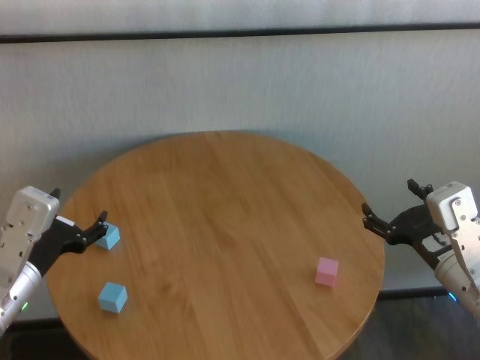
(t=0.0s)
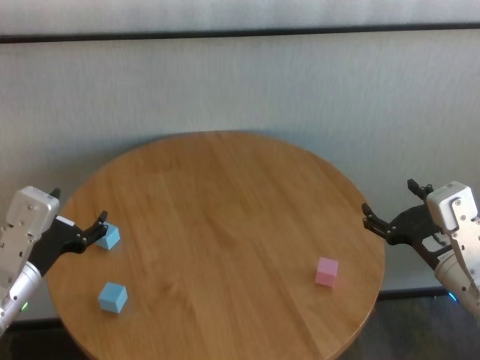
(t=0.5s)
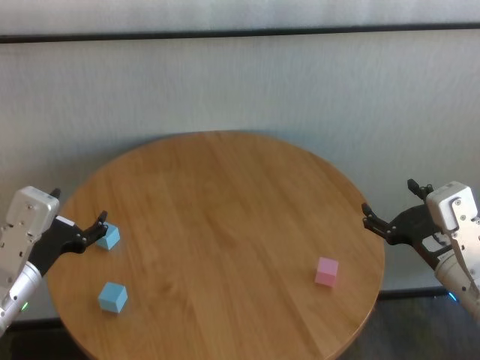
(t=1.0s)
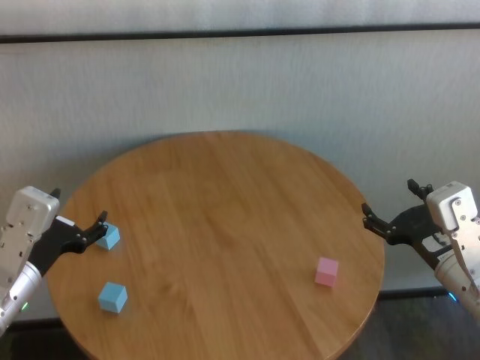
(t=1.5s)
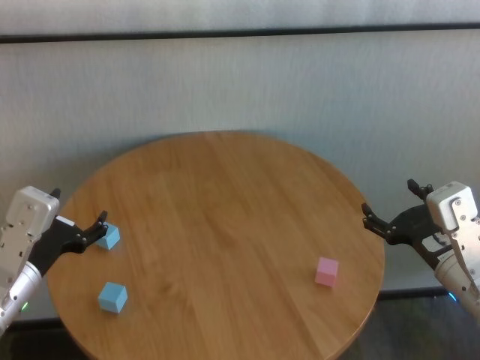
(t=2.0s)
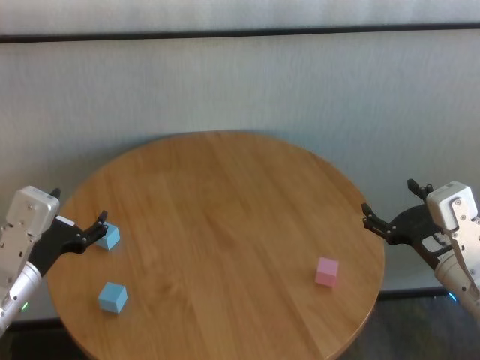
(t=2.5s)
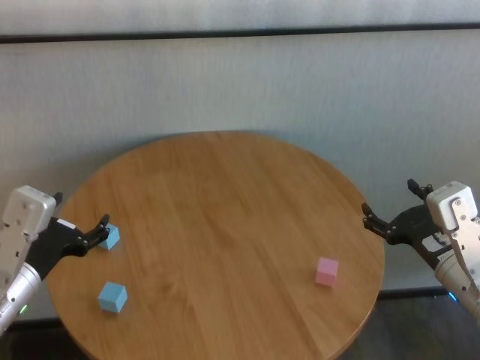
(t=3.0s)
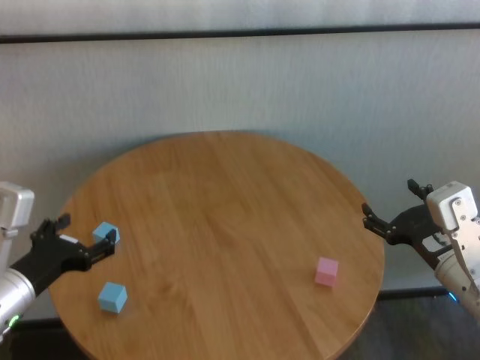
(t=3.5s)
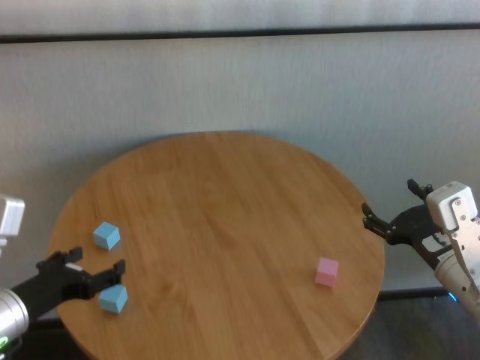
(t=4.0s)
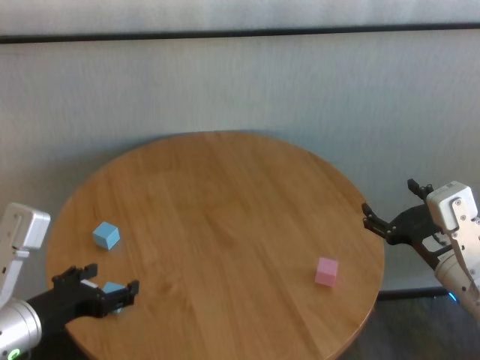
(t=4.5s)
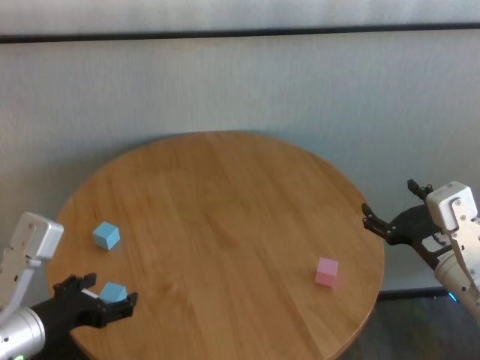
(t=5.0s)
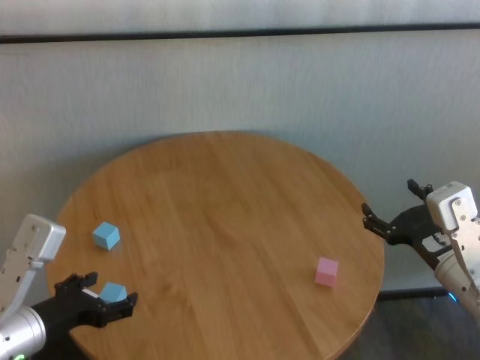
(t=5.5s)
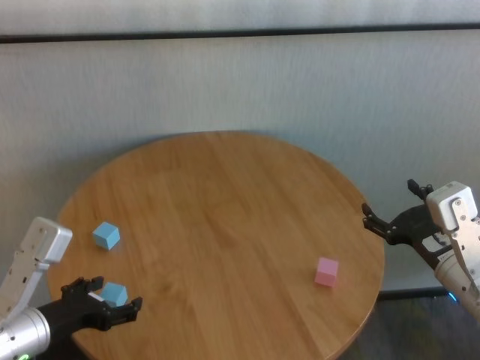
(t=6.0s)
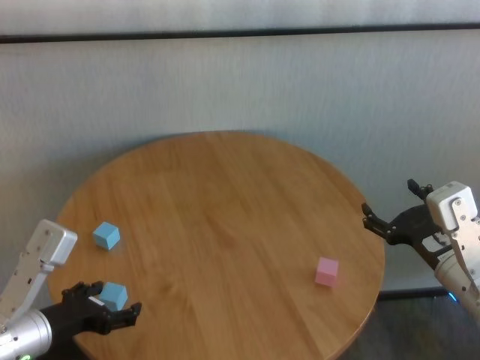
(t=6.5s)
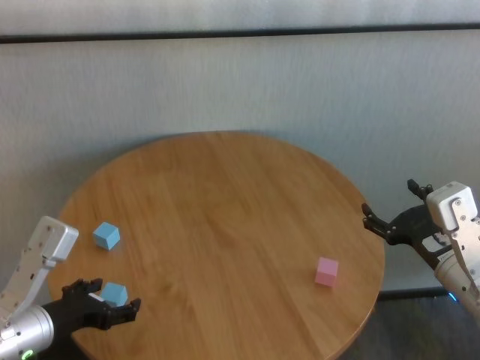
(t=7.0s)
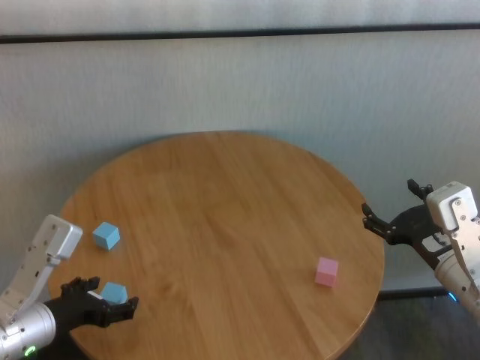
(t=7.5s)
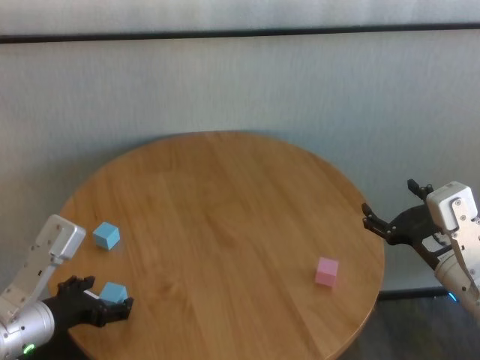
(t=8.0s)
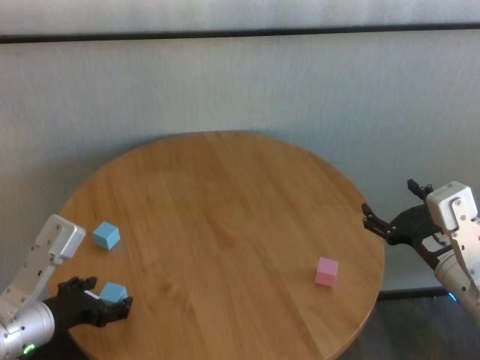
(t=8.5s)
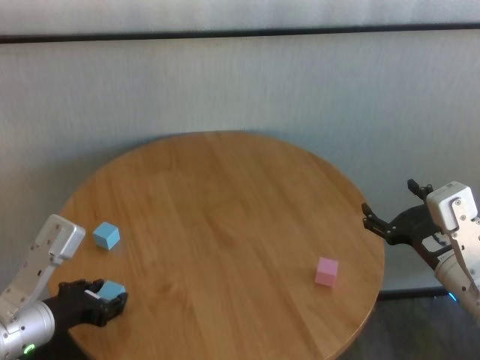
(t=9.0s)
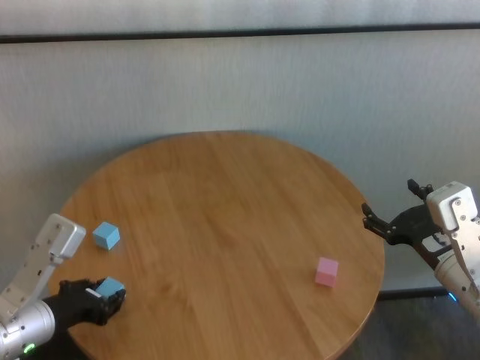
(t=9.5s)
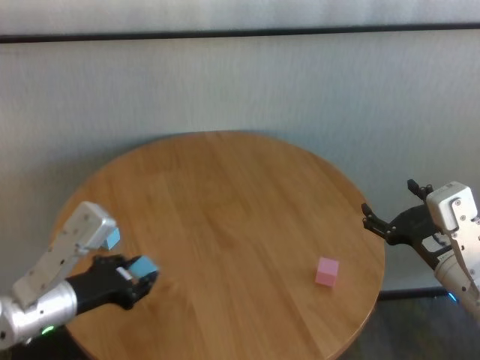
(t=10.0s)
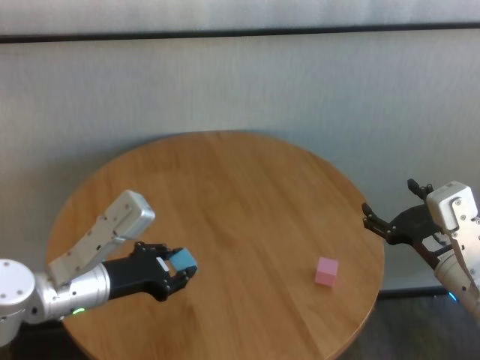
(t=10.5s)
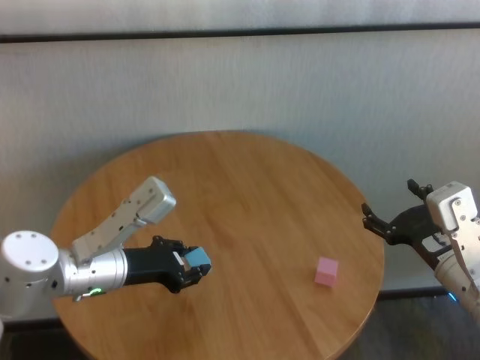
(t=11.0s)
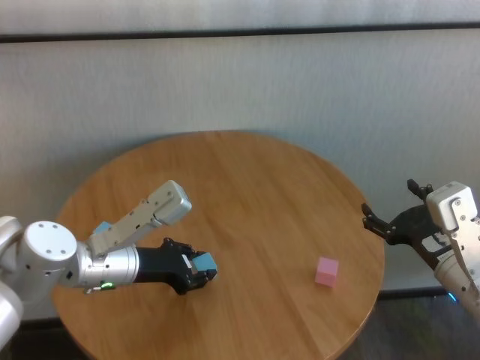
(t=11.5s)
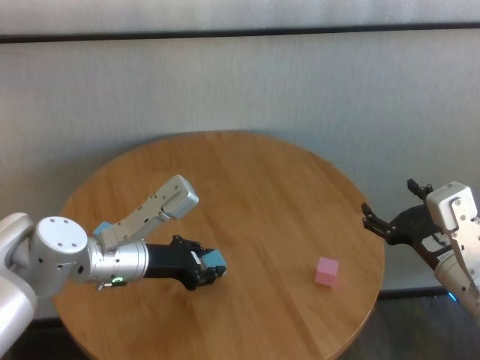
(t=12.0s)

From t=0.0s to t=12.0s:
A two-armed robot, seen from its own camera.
Task of the whole recording: stack building blocks on the table.
Step, from t=0.0s to t=9.0s: Grasp the blue building block with left gripper.

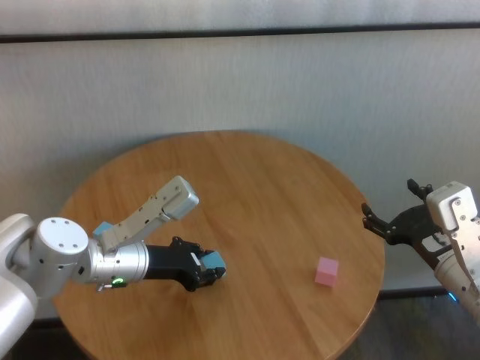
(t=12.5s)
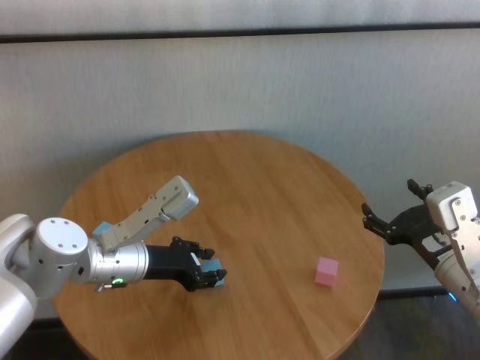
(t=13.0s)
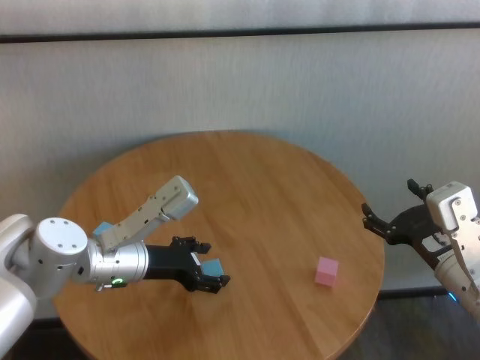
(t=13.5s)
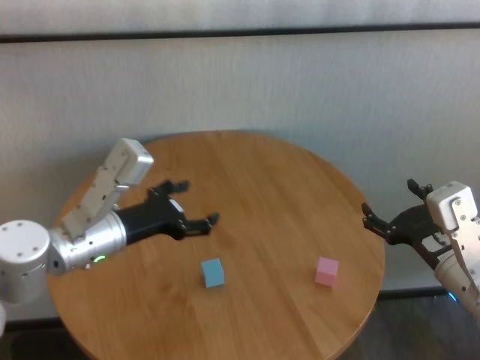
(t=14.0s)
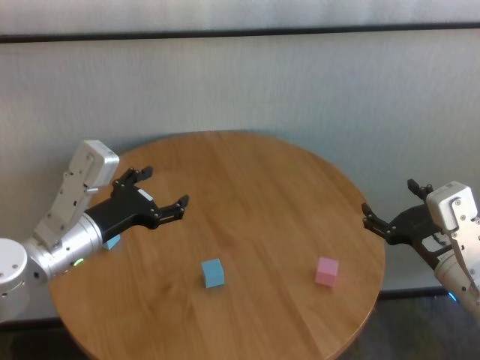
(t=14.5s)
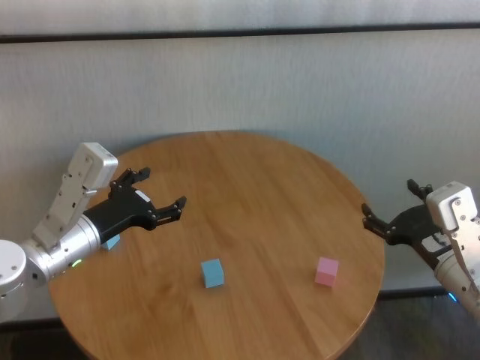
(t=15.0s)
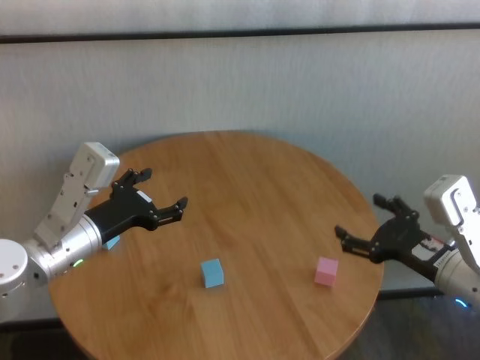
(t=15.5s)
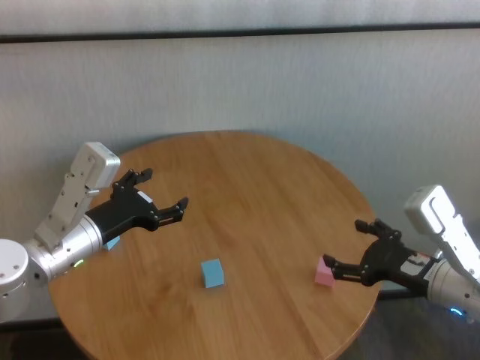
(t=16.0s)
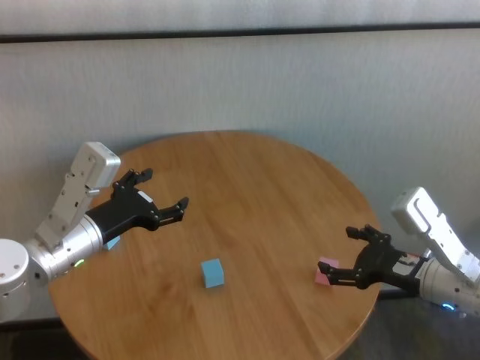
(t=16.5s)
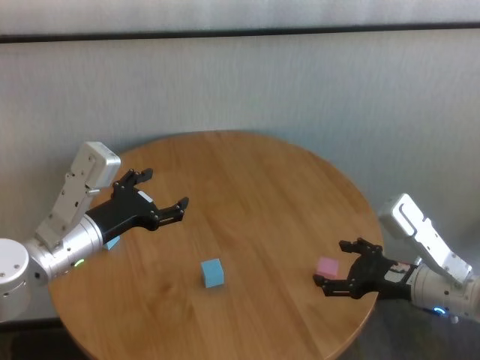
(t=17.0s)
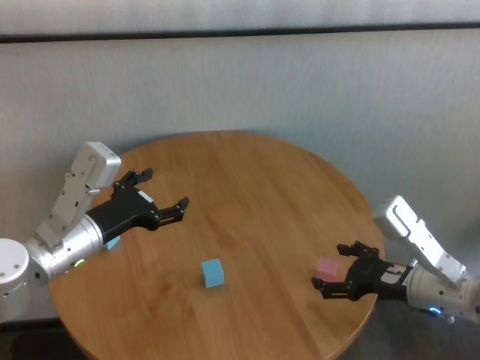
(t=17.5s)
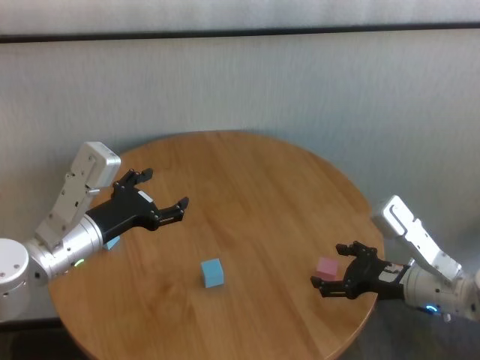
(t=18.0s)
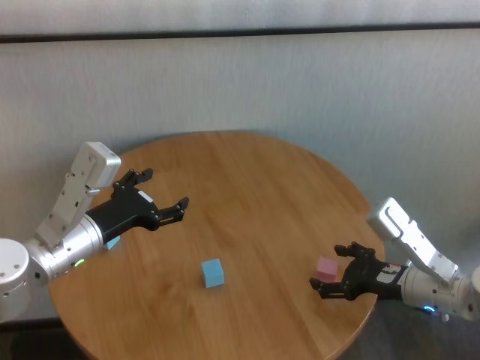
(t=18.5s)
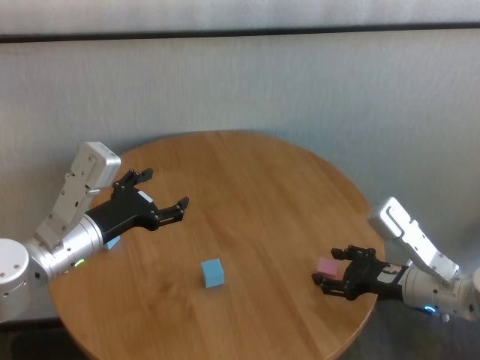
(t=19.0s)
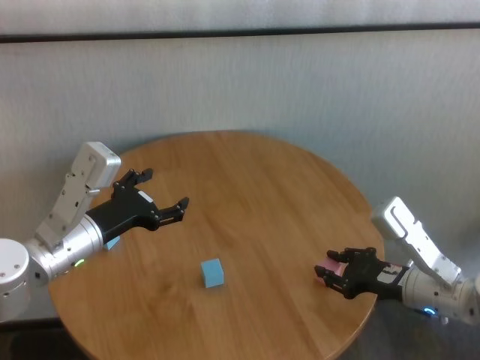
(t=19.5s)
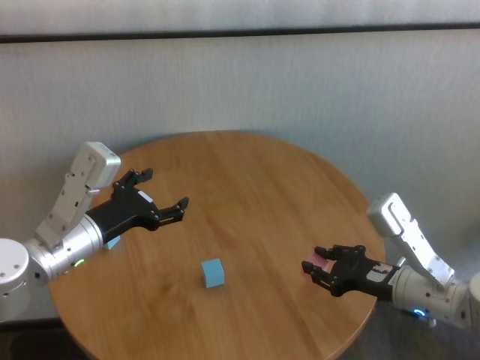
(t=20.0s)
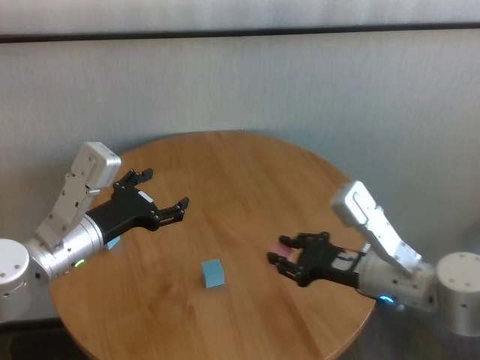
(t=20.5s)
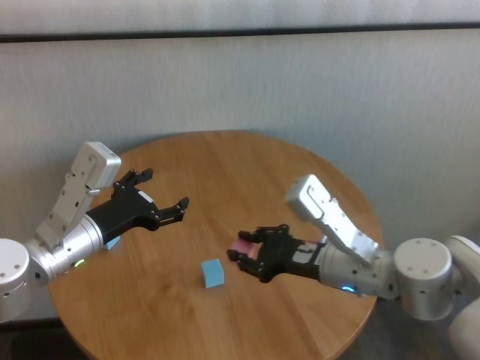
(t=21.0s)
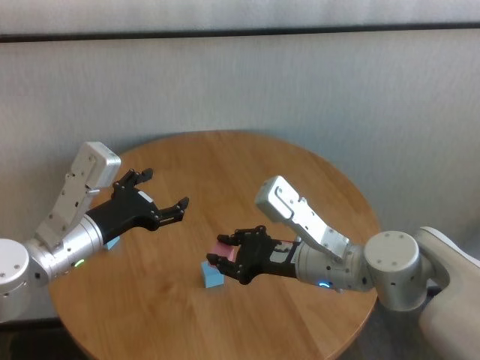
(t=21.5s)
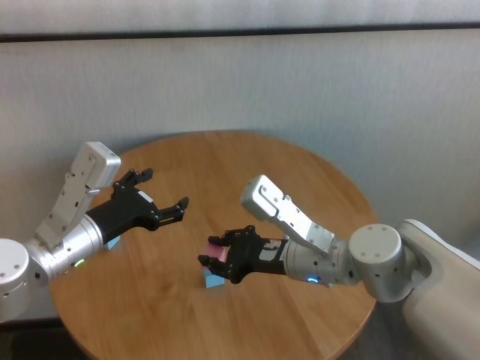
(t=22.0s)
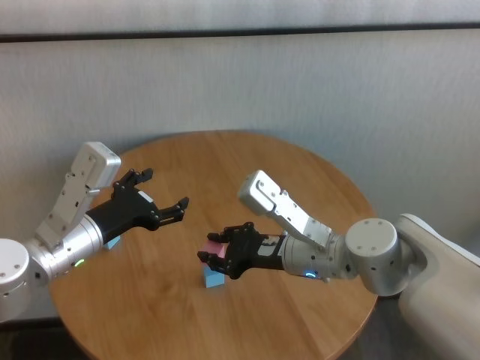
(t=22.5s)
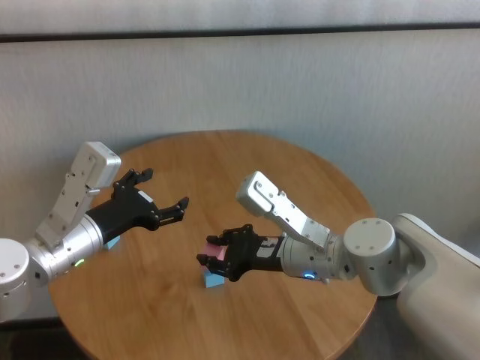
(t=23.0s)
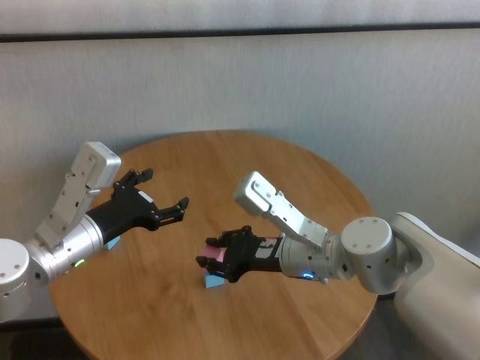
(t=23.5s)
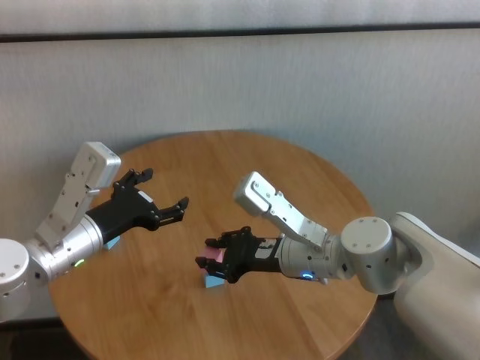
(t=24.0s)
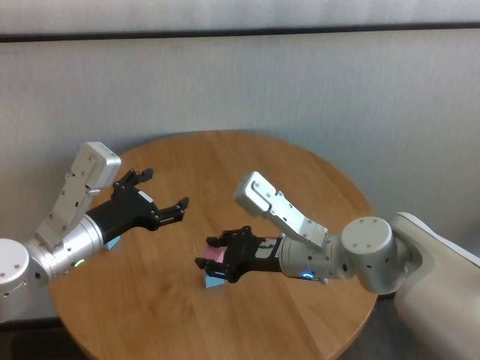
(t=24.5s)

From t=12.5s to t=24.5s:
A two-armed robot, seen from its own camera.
Task of the whole recording: stack building blocks on the table.
Step, from t=13.5s to t=19.5s: Grasp the pink building block with right gripper.

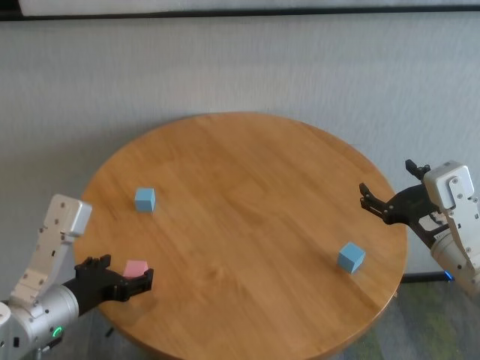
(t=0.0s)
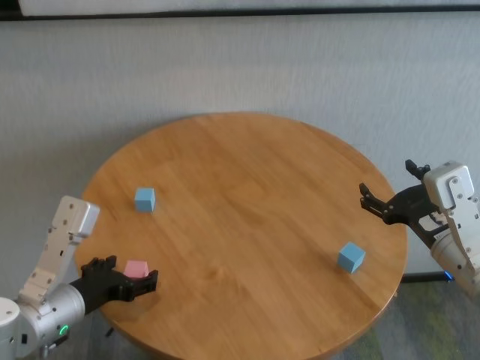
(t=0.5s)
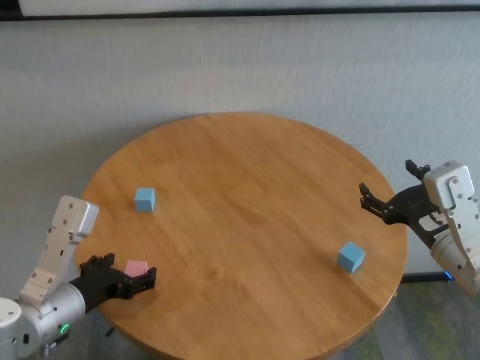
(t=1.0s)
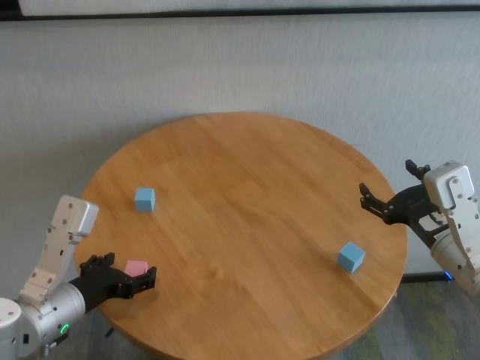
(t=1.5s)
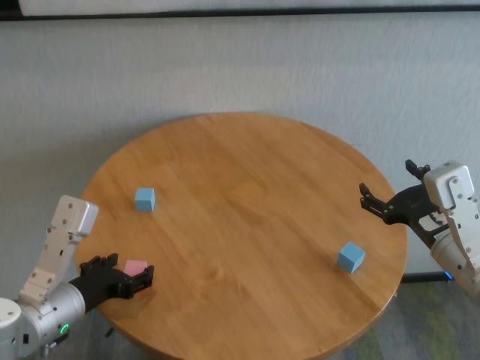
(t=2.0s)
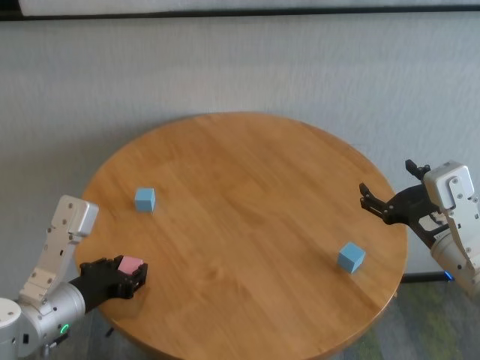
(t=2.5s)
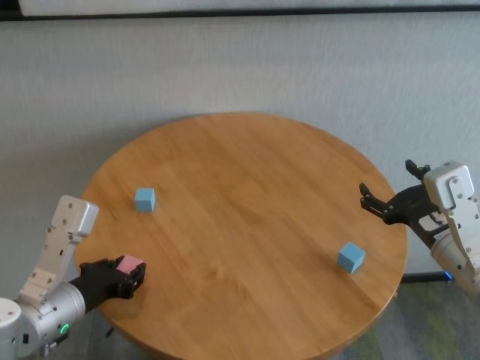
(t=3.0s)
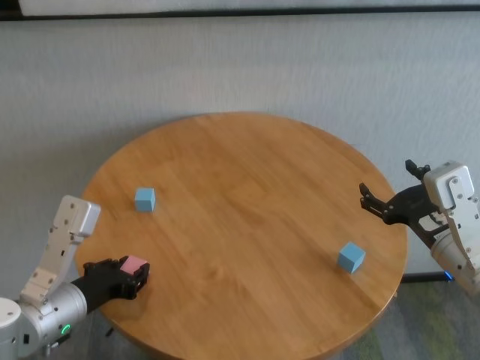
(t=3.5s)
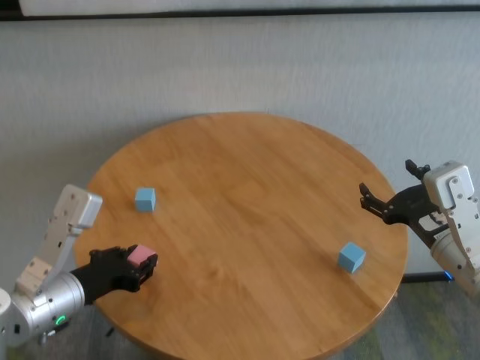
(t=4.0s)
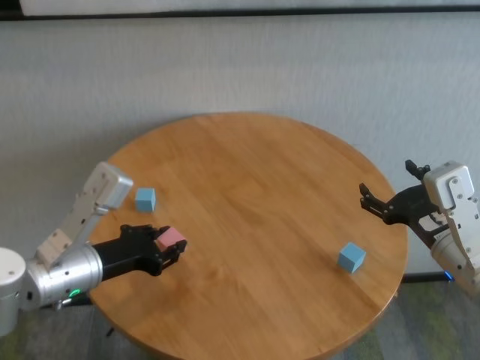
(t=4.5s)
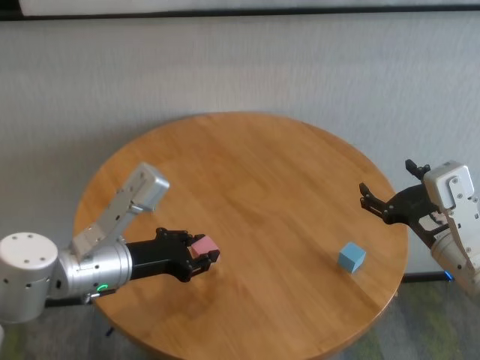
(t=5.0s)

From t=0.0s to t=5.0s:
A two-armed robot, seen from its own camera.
Task of the whole recording: stack building blocks on the table.
Step, from t=0.0s to t=3.0s: Grasp the pink building block with left gripper.
